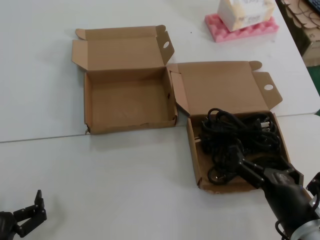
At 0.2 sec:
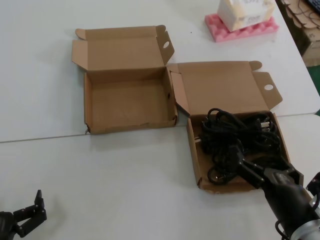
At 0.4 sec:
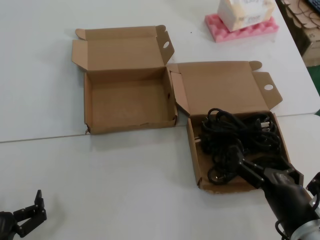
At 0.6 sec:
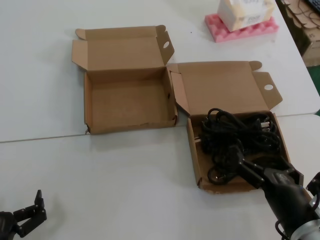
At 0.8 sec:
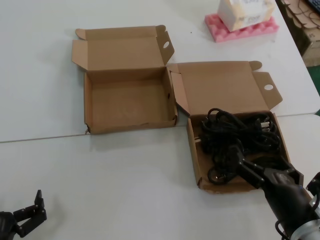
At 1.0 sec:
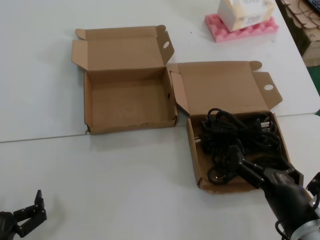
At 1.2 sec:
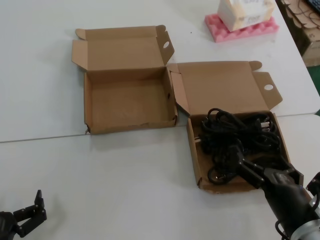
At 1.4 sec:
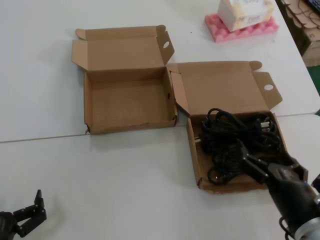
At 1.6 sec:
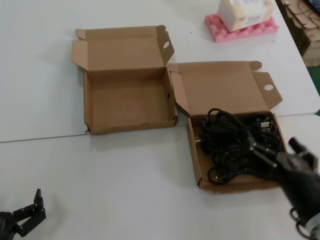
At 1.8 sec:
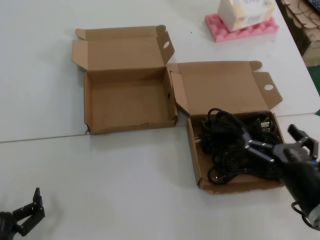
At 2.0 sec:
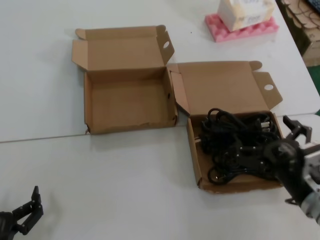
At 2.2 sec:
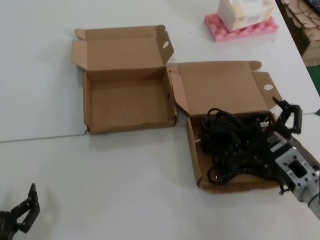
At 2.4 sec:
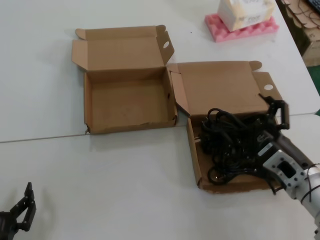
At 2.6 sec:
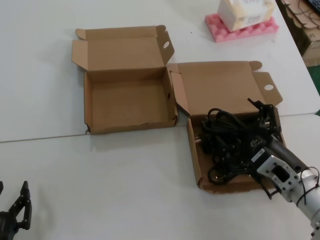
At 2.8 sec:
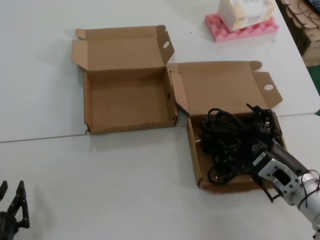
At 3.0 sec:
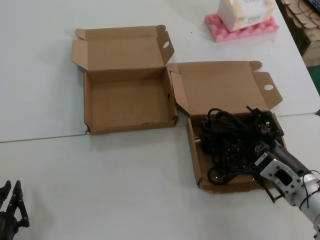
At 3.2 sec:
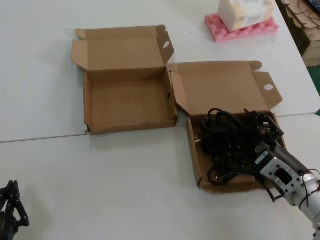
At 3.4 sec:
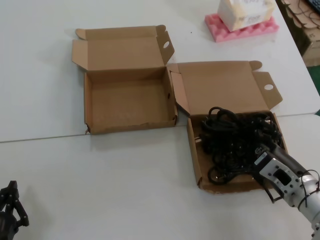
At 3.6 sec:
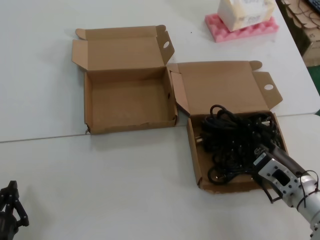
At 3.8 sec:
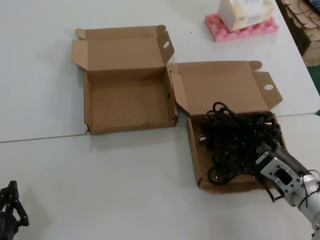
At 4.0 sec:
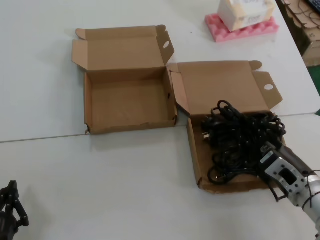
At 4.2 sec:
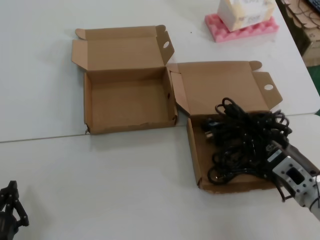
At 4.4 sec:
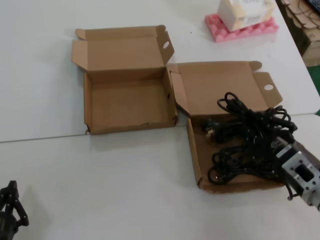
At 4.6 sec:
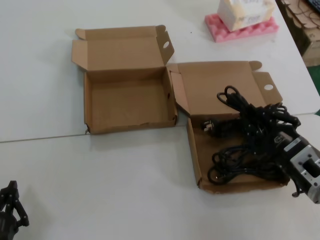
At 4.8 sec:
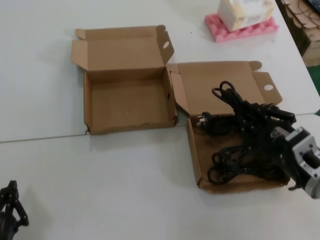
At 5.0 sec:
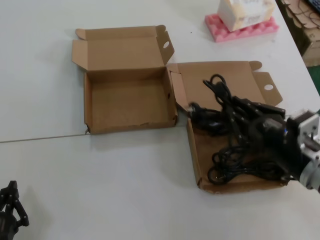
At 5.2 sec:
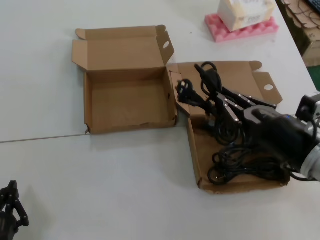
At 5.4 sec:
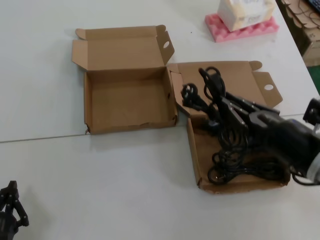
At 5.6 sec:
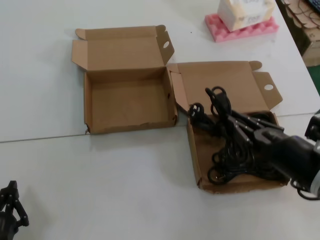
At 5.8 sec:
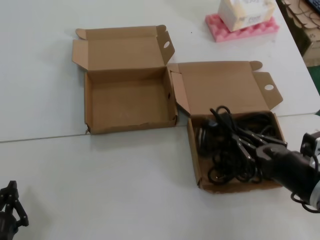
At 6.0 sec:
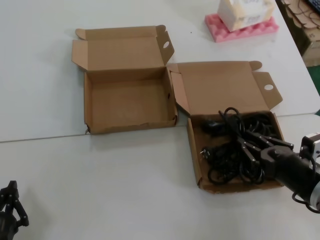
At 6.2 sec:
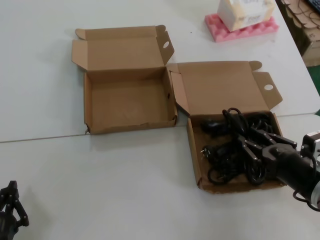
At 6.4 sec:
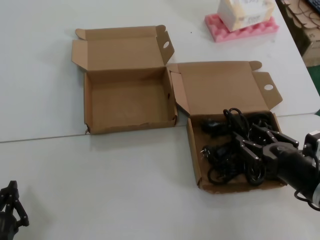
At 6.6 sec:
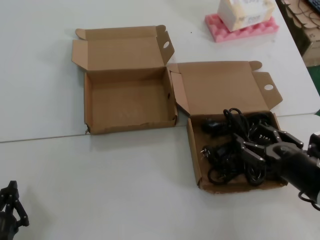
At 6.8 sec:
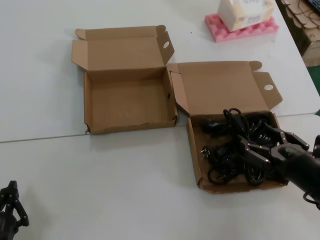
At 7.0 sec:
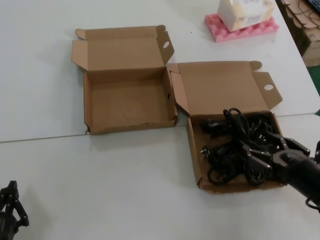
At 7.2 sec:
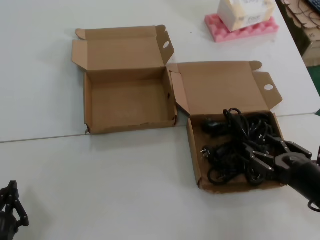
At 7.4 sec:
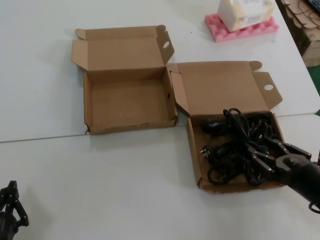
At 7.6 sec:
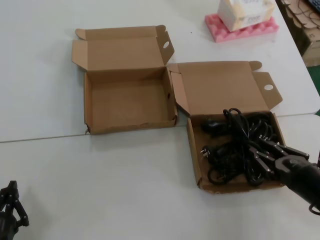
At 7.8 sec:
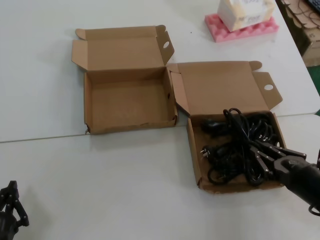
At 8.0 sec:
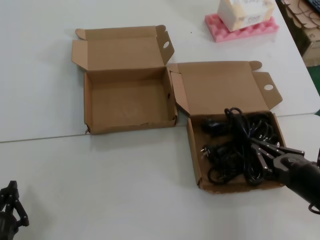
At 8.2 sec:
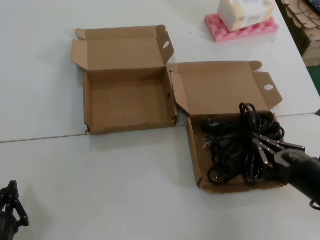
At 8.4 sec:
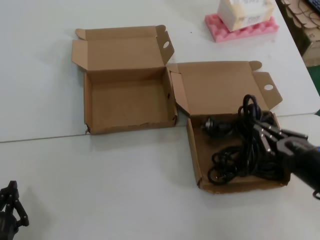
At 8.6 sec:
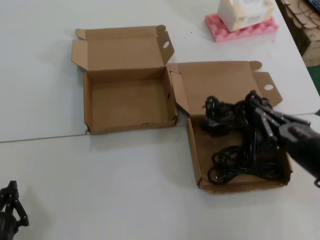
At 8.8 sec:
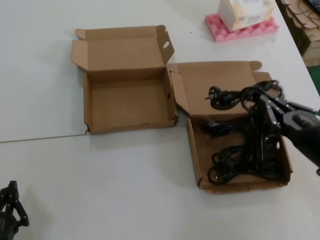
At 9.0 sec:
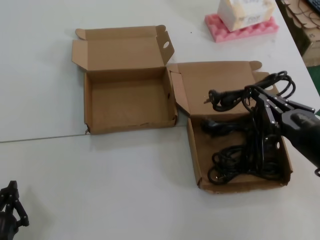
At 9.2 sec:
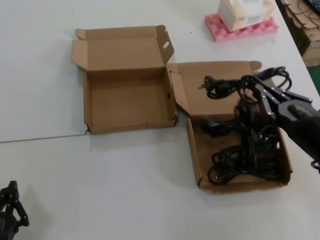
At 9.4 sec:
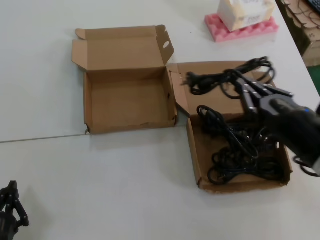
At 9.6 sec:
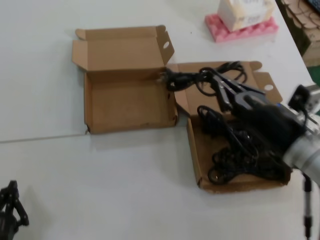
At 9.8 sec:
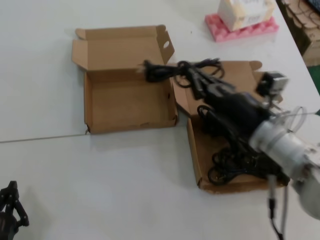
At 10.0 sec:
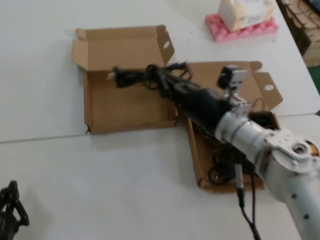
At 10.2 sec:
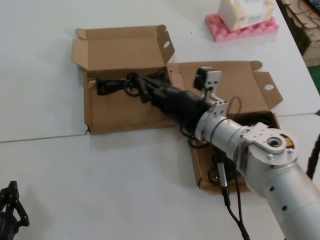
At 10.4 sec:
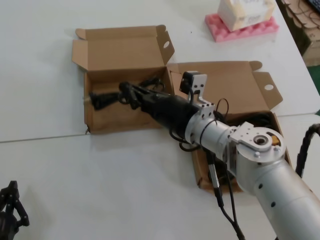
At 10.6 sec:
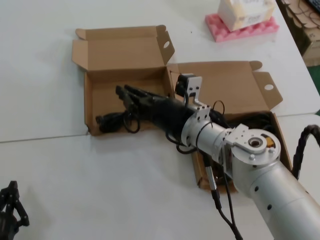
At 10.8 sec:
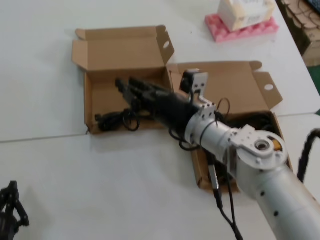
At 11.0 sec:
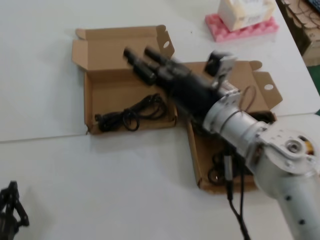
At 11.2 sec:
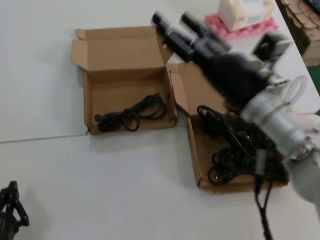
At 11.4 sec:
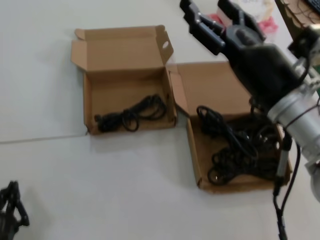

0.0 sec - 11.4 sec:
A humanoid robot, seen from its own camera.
Task of the whole recording: Pick up the power cord from the box containing it and place it in another box.
Step, 0.0 sec - 8.4 sec: Grasp the data cable.
Step, 8.6 sec - 10.6 sec: Place the data cable in the another box.
0.0 sec - 1.4 sec: Neither hand changes place.
1.4 sec - 2.8 sec: The right hand goes roughly 10 cm forward.
2.8 sec - 4.2 sec: The hands stay close to where they were, moving slightly.
4.2 sec - 5.6 sec: The right hand travels upward by roughly 5 cm.
5.6 sec - 7.2 sec: The right hand moves approximately 5 cm.
7.2 sec - 8.6 sec: The hands make only small movements.
8.6 sec - 10.0 sec: The right hand goes about 20 cm to the left and forward.
10.0 sec - 11.4 sec: The right hand travels backward and upward by roughly 10 cm.

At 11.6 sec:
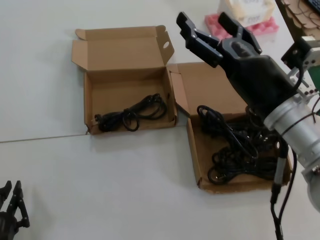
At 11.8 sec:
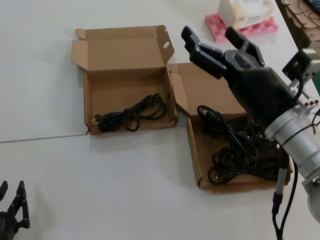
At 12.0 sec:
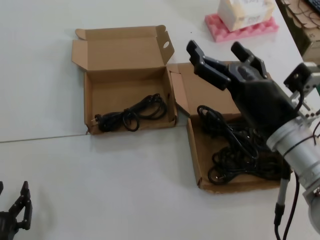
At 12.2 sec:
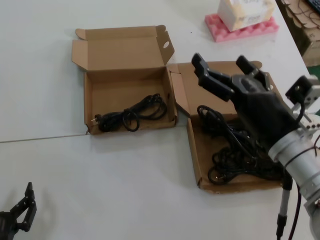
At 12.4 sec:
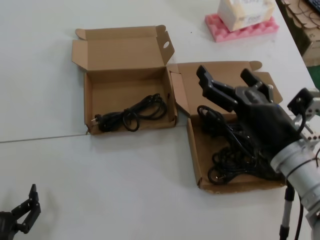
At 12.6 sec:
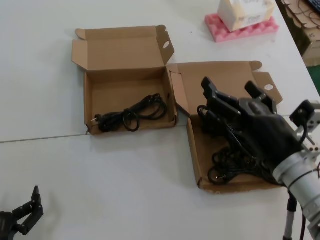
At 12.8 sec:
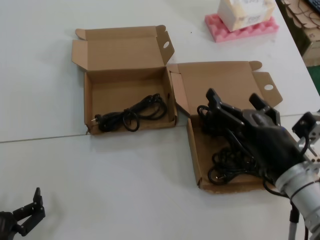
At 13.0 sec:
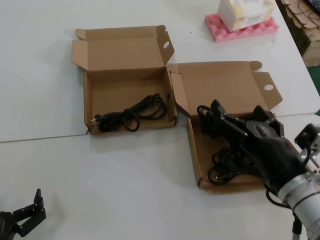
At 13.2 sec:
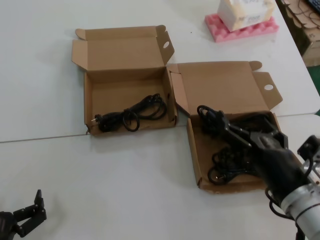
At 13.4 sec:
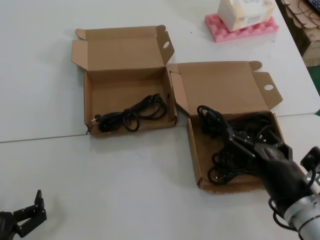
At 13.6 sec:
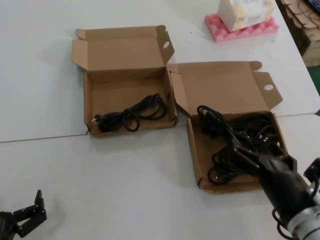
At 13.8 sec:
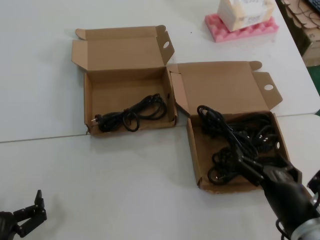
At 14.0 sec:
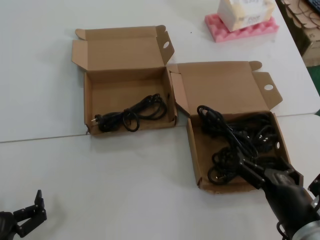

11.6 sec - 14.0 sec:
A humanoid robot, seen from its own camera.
Task of the whole recording: Pick up the power cord from the box containing it and place it in another box.
11.6 sec - 12.8 sec: The right hand is displaced downward by approximately 10 cm.
12.8 sec - 14.0 sec: The right hand moves downward and backward, roughly 10 cm.
